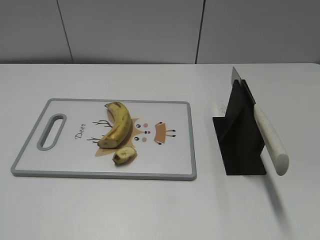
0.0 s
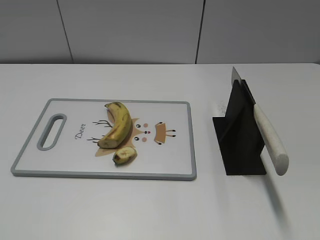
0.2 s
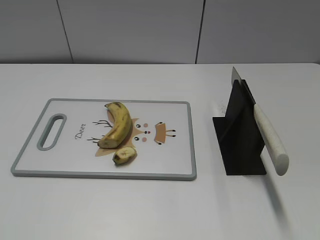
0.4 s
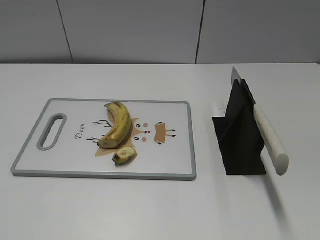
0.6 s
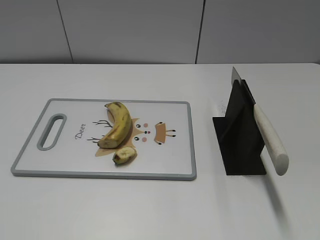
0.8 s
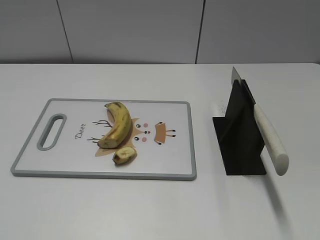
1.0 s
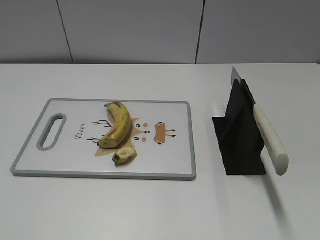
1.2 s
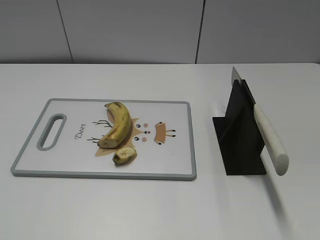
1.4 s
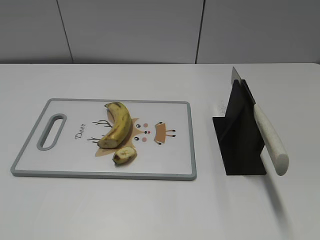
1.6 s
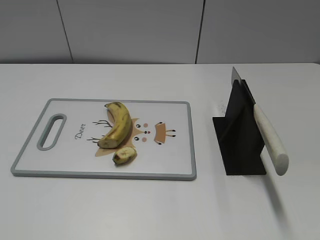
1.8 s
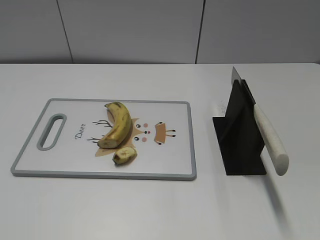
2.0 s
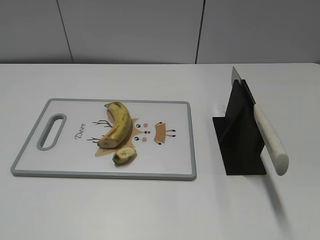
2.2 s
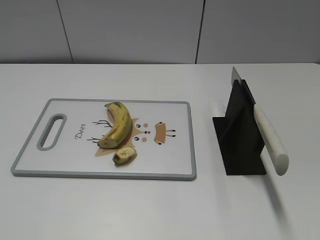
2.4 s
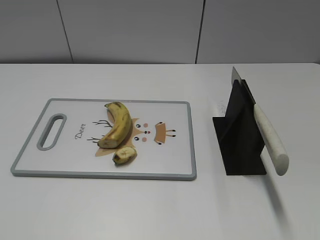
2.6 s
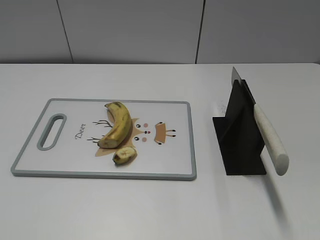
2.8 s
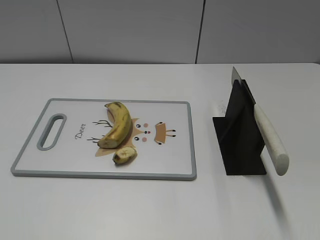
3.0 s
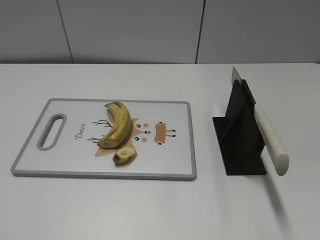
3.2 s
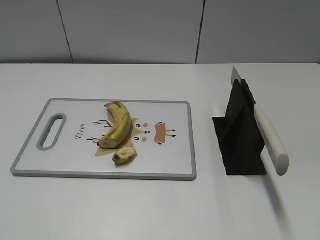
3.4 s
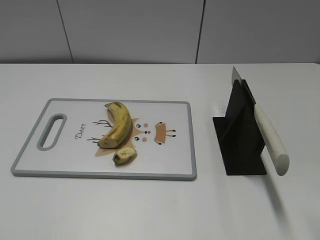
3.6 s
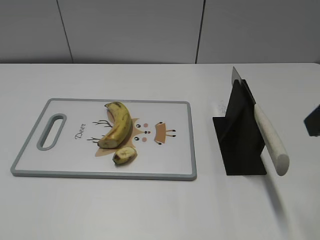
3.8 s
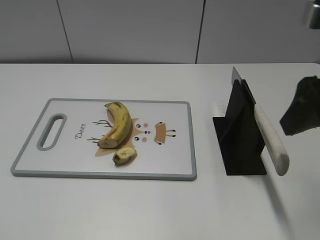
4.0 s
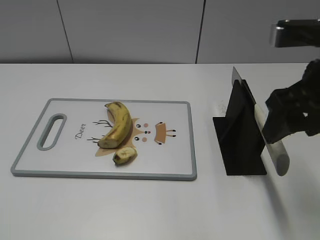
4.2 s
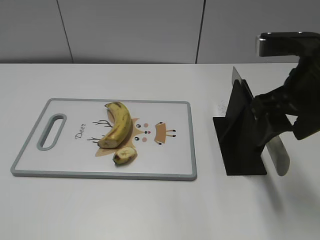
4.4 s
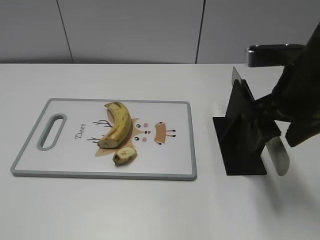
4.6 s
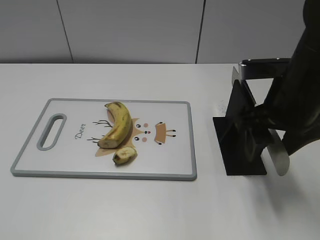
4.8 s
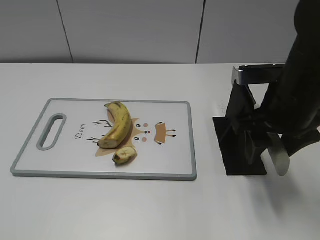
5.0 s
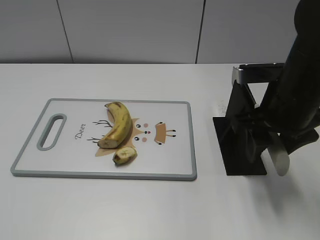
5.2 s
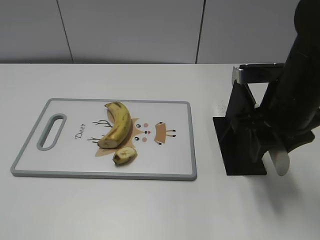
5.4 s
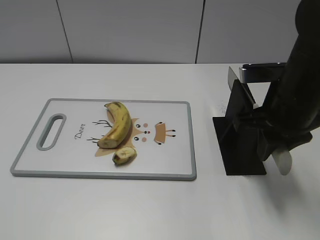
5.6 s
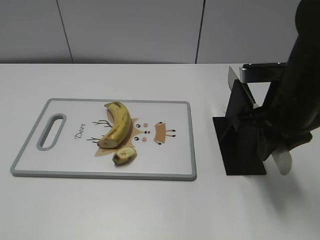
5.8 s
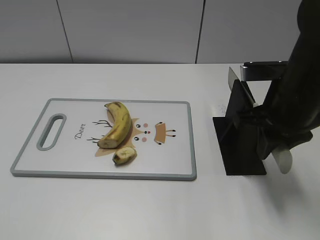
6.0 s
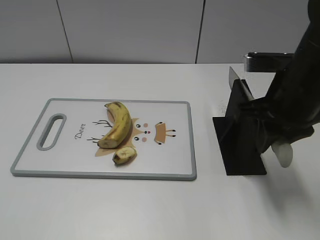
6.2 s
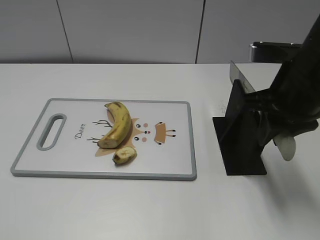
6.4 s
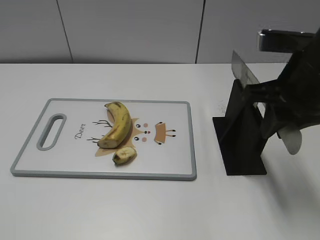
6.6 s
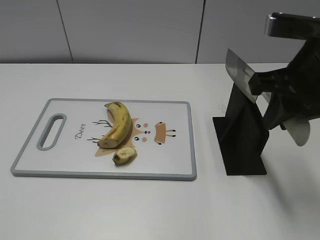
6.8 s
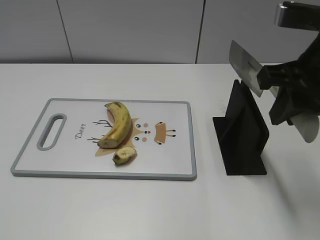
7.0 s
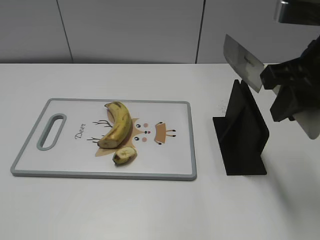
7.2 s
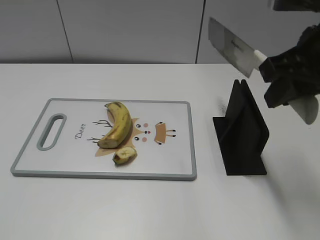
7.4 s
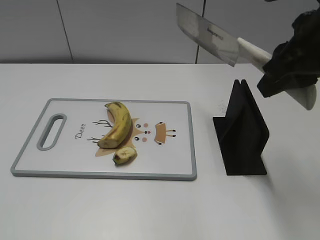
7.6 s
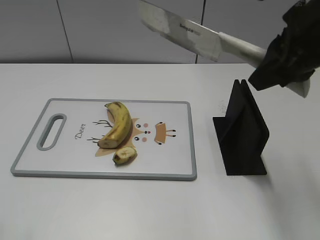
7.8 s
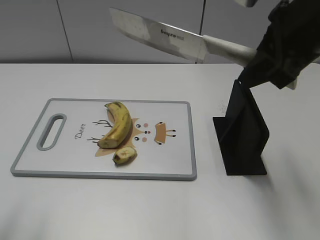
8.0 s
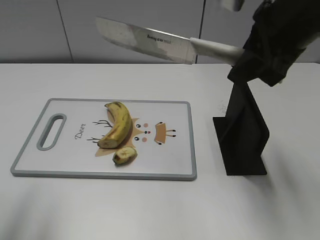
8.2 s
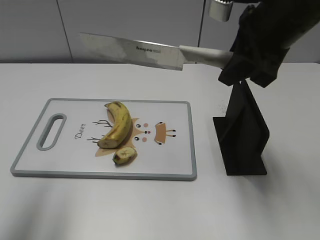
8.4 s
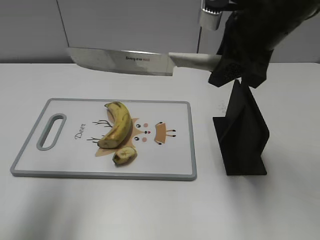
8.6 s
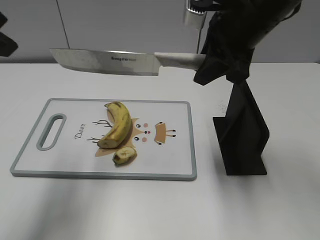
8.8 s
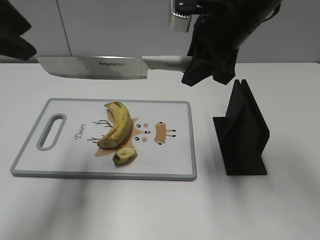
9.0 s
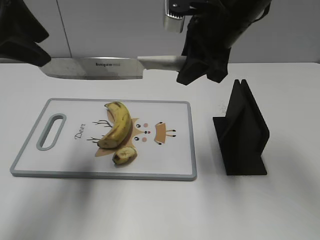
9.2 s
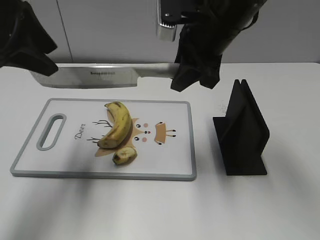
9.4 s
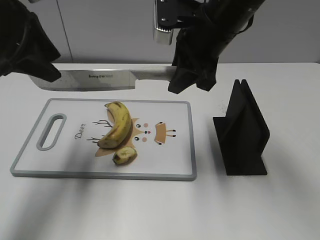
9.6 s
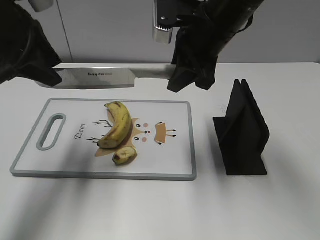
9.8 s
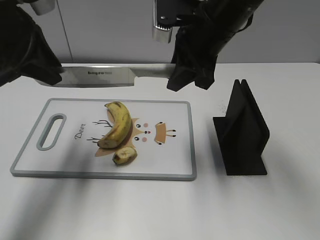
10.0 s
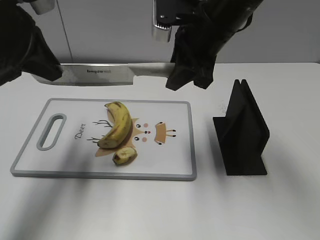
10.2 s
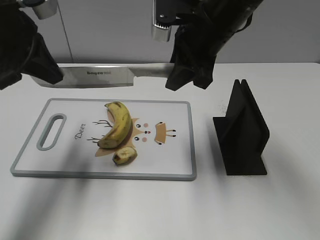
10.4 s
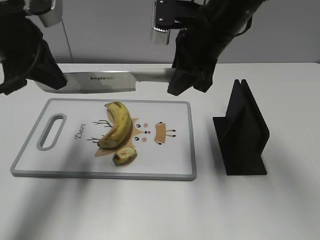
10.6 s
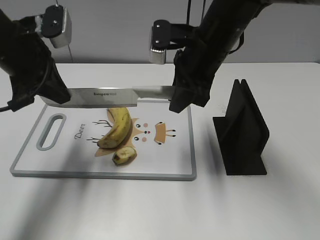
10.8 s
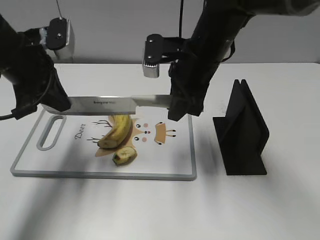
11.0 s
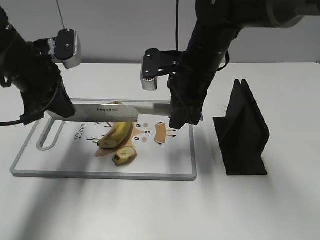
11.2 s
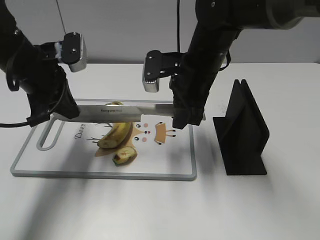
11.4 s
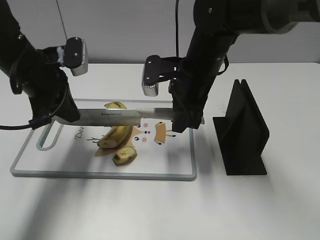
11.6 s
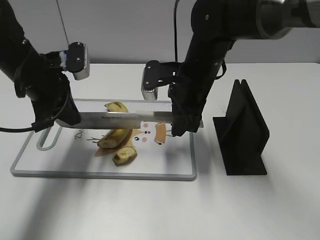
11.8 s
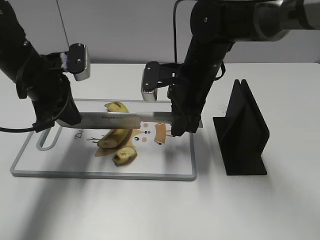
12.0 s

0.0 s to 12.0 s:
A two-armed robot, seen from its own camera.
Task of the whole recording: cut banana.
Step, 0.0 to 7.0 s: Grab the knife handle with your right hand.
3.0 to 4.4 s: The right gripper shifts roughly 20 cm forward, to the left and downward.
4.4 to 6.0 s: The right gripper changes place by about 5 cm, and closes its fingers.
6.0 to 7.6 s: The right gripper travels upward by some 10 cm.
7.6 to 9.0 s: The right gripper shifts some 10 cm forward and to the left. The left gripper heads forward, covering about 25 cm.
9.0 to 10.4 s: The left gripper travels downward and forward by about 10 cm, and closes up.
10.4 to 12.0 s: The grippers both shift downward by about 10 cm.

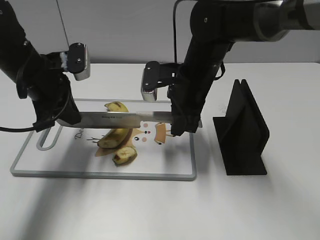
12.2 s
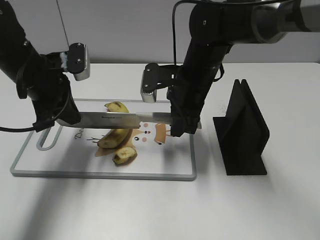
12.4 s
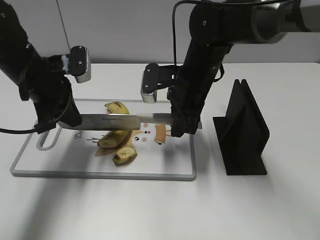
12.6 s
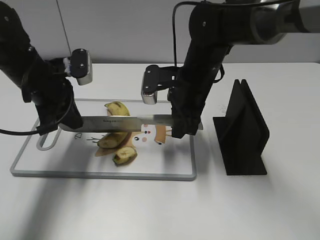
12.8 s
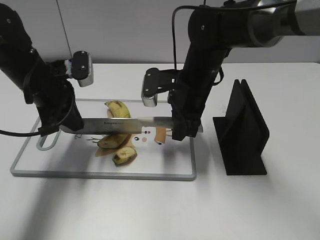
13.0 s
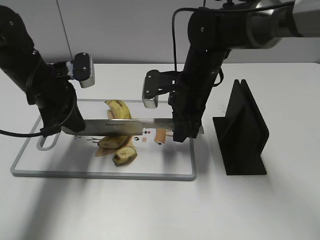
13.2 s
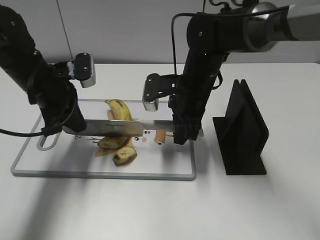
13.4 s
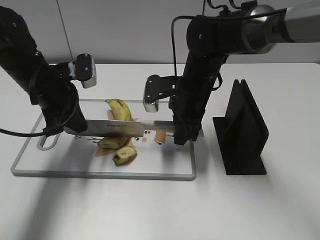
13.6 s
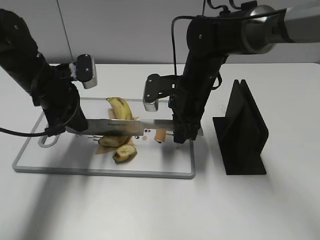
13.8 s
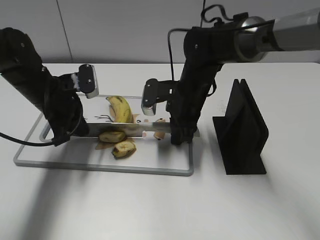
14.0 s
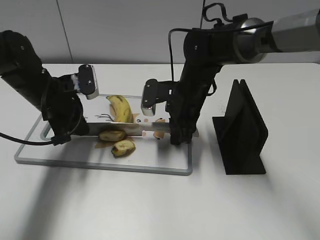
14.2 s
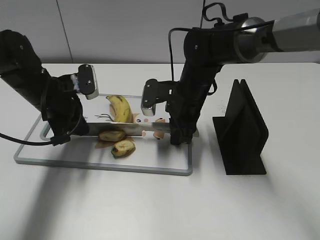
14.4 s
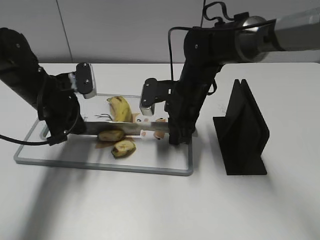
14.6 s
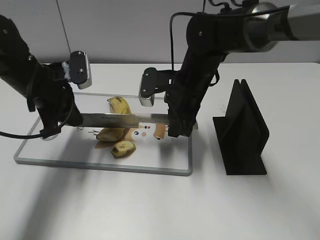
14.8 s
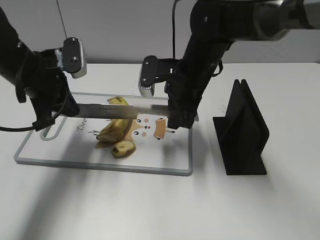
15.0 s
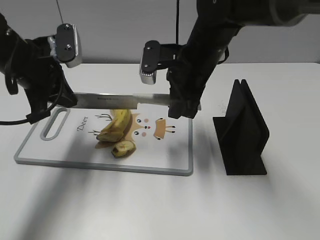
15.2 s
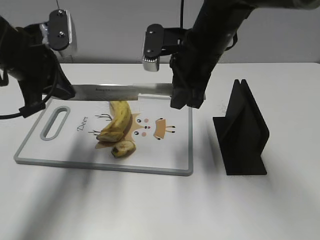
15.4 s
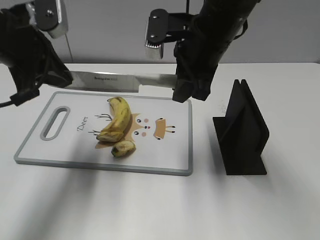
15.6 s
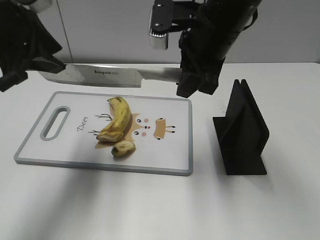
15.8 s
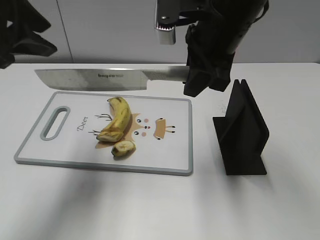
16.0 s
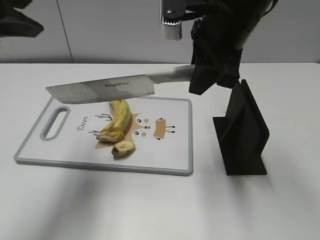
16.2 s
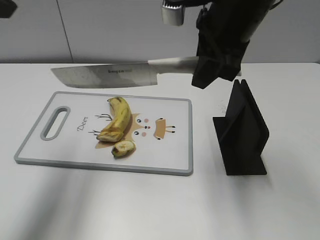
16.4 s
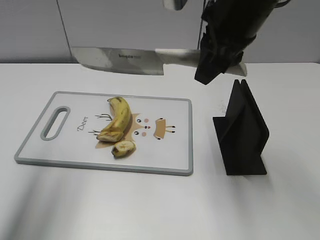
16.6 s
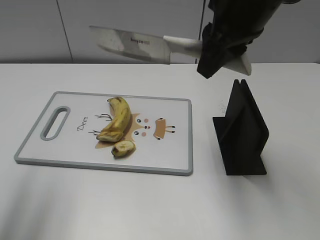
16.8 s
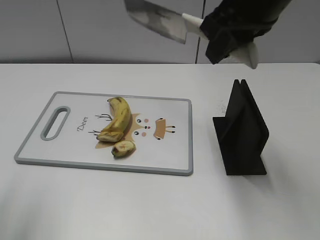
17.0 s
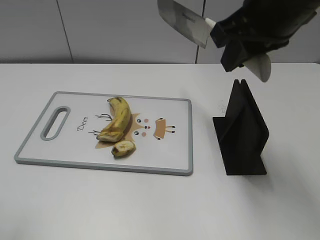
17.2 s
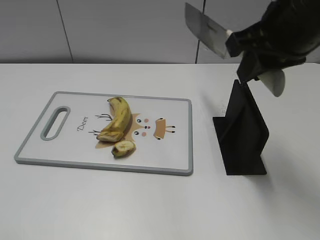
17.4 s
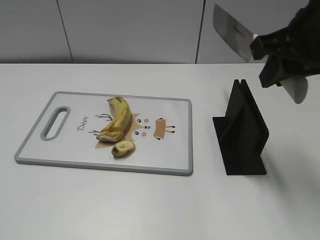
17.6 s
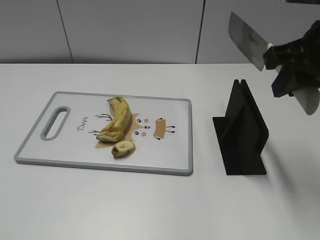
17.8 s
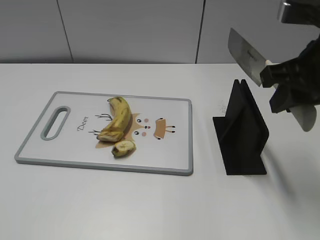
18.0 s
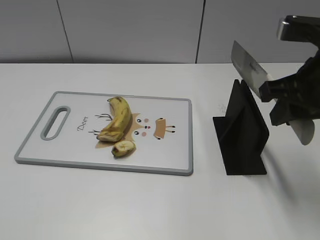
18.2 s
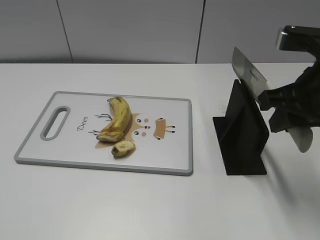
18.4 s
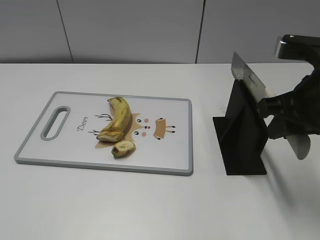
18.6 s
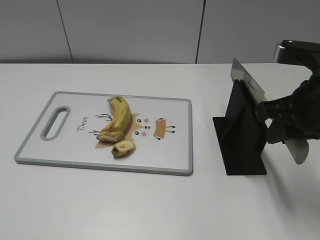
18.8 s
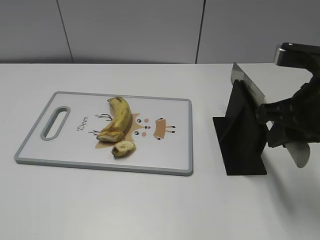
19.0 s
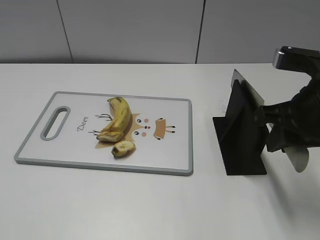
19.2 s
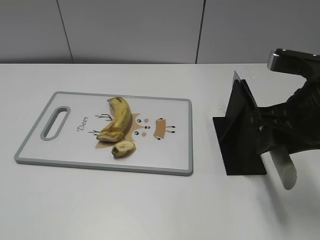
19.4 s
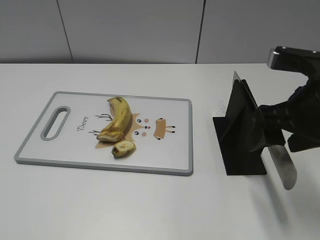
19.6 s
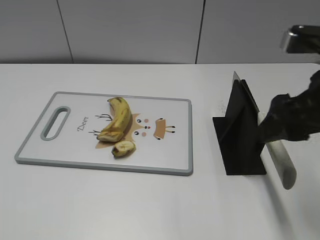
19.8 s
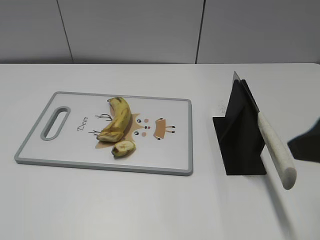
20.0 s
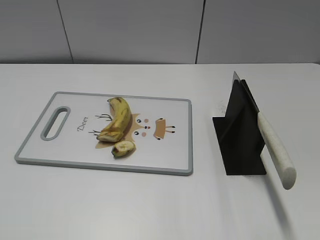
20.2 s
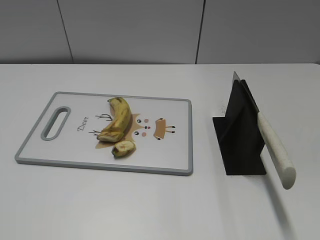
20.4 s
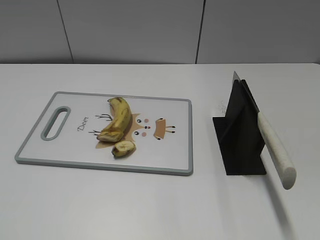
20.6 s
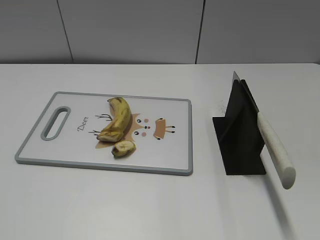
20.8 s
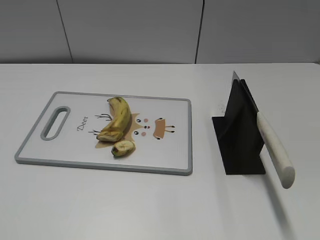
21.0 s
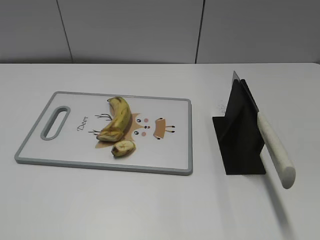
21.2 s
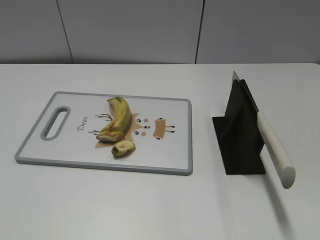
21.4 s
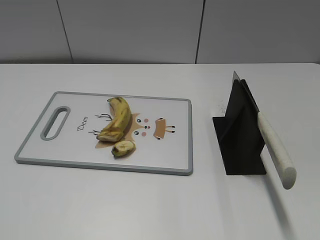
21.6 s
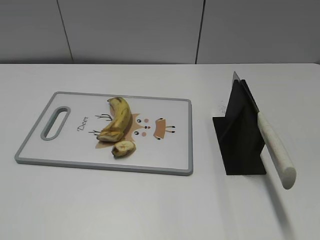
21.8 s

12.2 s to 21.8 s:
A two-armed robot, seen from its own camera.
Task of the whole recording: cut banana.
Step, 13.2 to 17.6 s: Cut the banana with your right hand.
Step, 17.8 to 19.4 s: Lift the knife with your right hand.
Step, 19.8 to 21.8 s: Place the knife on the storage rack with your right hand.
12.2 to 13.8 s: There are only small adjustments of the grippers.
13.8 to 15.4 s: The grippers both shift upward by about 10 cm.
15.4 to 17.0 s: The left gripper moves backward, upward and to the left, approximately 25 cm, and opens up. Meanwhile the right gripper is displaced upward and backward by roughly 15 cm.
17.0 to 18.6 s: The right gripper goes some 15 cm downward, to the right and backward. Meanwhile the left gripper shifts approximately 20 cm backward and downward.
18.6 to 20.2 s: The right gripper moves backward, about 15 cm, and opens up.
